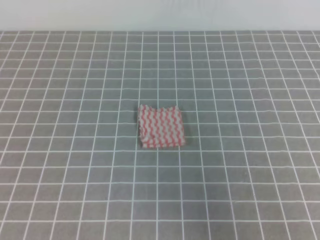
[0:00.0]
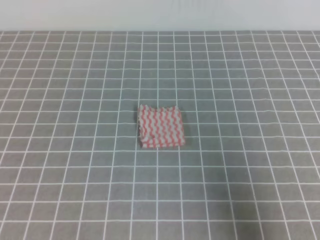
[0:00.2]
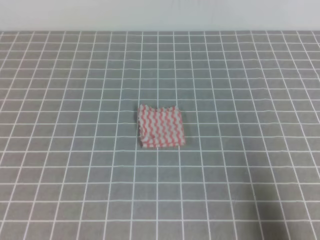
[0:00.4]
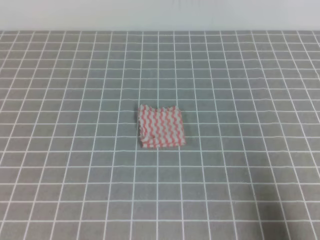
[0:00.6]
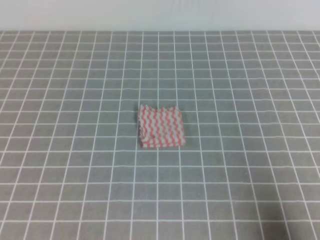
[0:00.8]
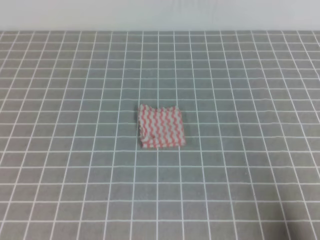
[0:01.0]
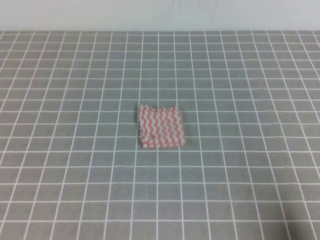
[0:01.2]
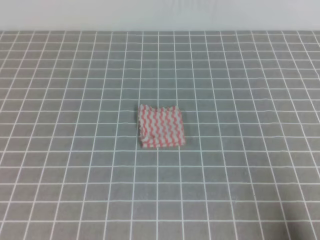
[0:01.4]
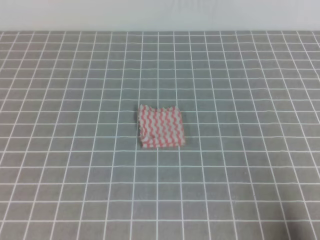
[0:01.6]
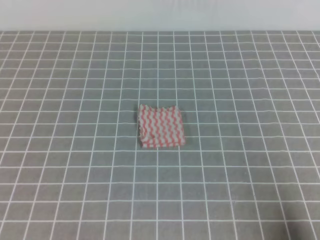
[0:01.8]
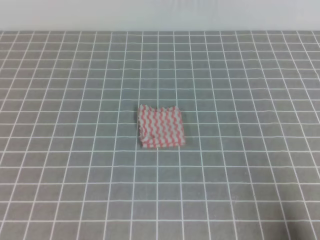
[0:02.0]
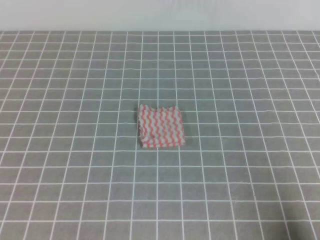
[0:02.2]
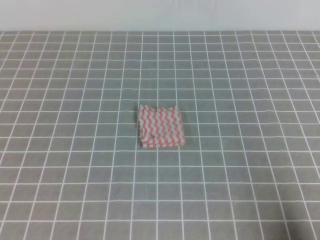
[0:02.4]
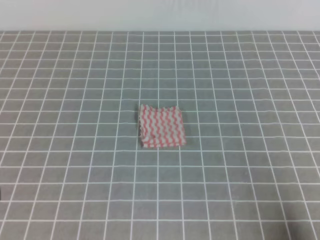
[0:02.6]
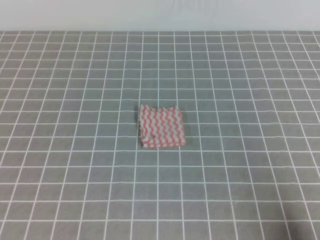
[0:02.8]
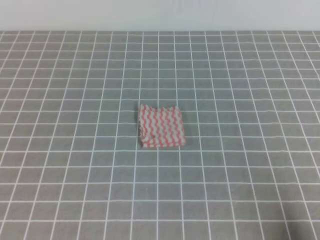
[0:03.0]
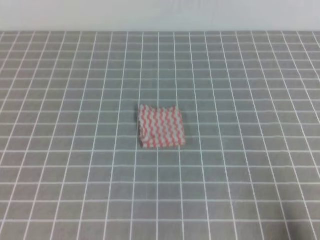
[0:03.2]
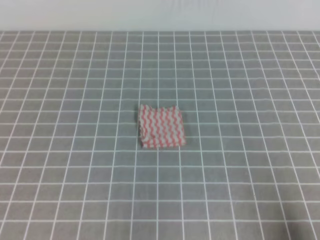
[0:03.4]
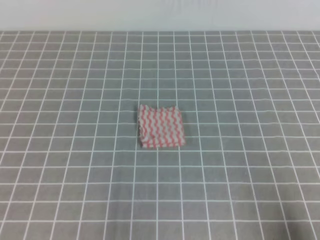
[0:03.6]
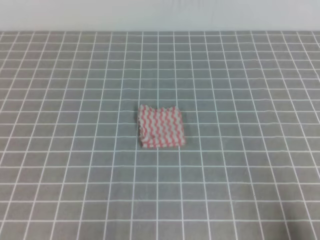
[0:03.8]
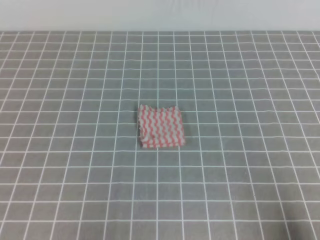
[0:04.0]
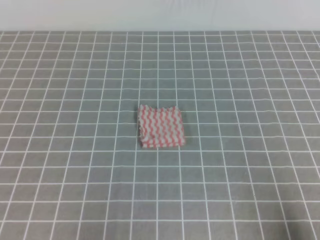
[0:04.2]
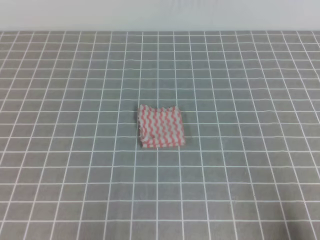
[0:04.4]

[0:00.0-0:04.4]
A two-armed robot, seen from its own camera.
Step, 0:00.0 to 0:04.4: Fold the towel.
0:00.0 to 0:01.4: The right gripper goes approximately 15 cm downward.
